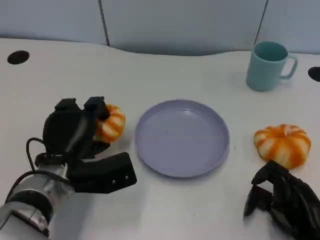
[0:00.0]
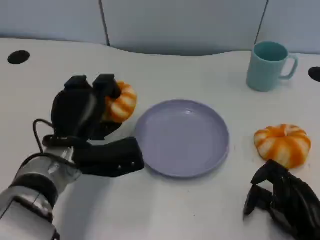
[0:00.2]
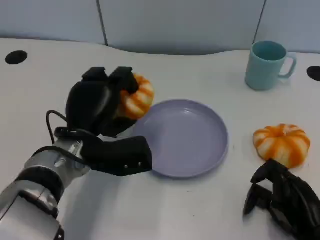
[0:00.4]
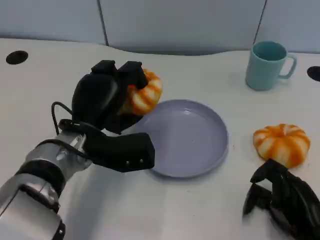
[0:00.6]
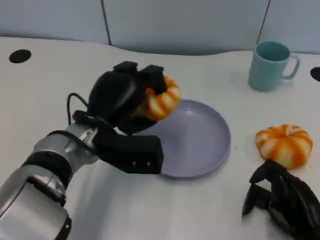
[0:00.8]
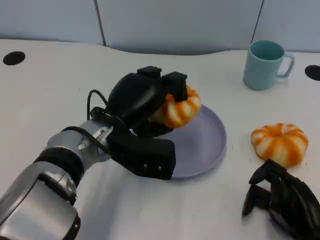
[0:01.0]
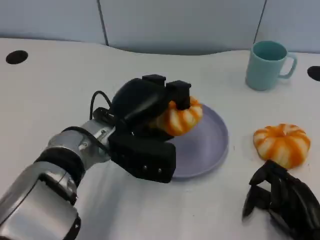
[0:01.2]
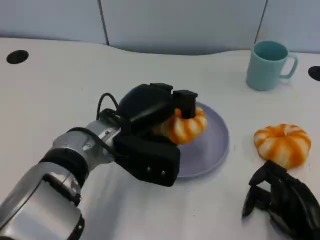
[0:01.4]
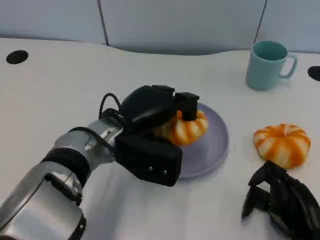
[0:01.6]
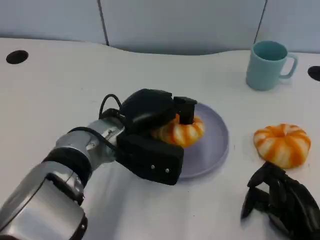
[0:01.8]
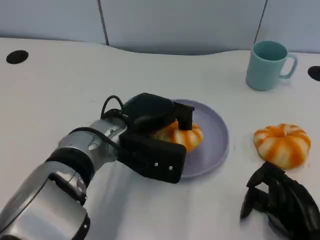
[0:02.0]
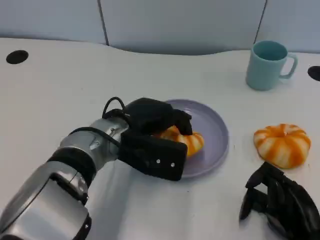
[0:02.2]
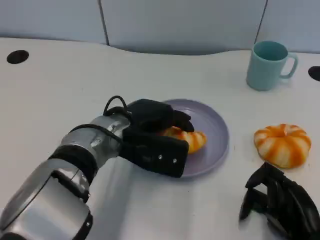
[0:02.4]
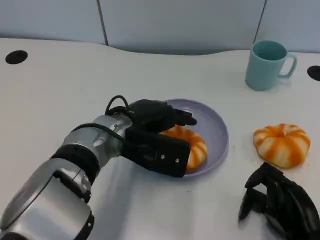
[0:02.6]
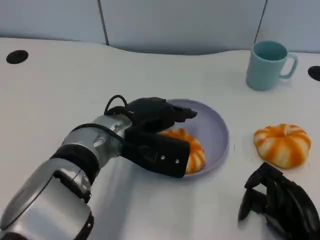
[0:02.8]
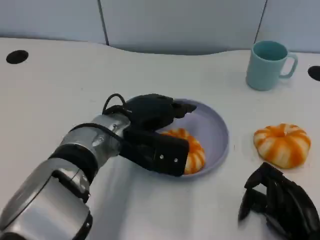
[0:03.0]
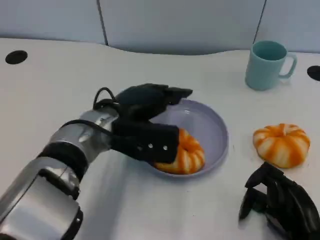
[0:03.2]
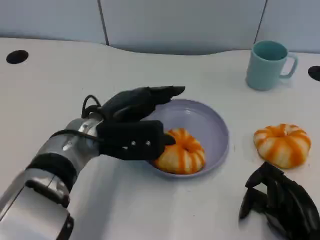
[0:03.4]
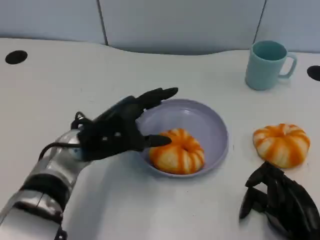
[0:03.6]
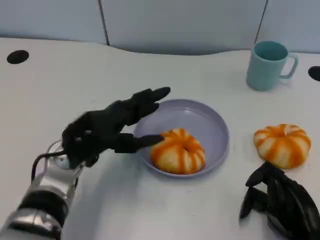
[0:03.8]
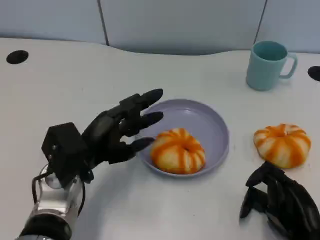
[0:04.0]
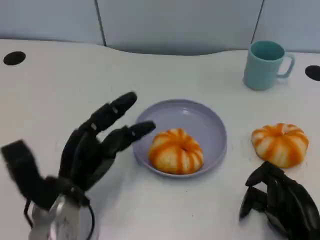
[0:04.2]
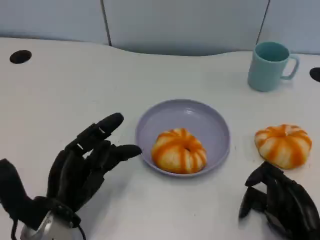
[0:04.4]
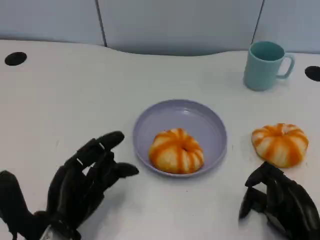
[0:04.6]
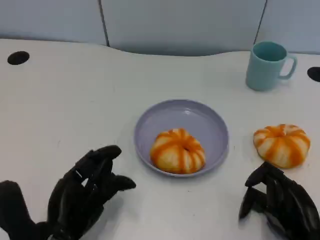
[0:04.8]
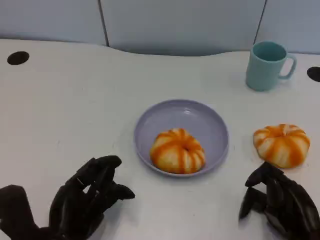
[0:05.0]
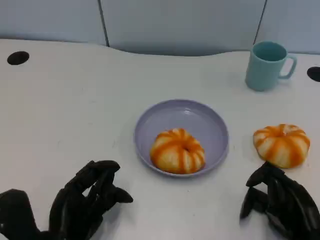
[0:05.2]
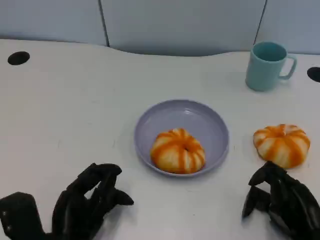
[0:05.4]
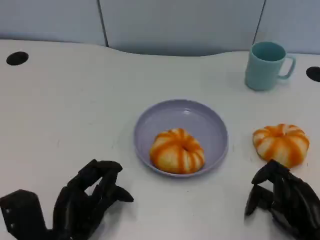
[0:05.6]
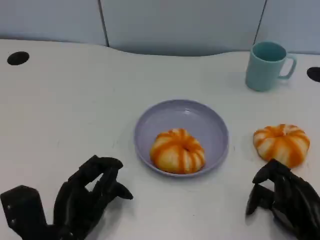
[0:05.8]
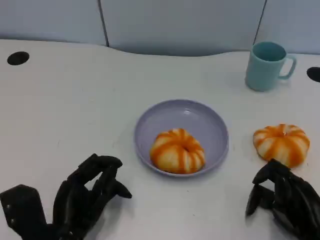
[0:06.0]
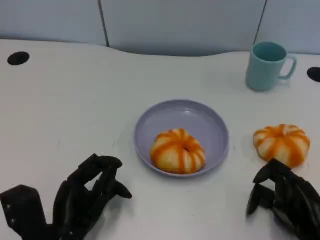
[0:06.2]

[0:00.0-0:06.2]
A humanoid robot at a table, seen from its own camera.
Task of the whole recording: Grasp the bread from the table and place it into the plate.
0:00.0 to 0:01.6: The left hand shifts some 10 cm to the right and upward.
0:03.2 to 0:04.6: The left hand shifts about 15 cm backward, to the left and downward.
0:04.6 to 0:06.2: There are only small adjustments of the hands.

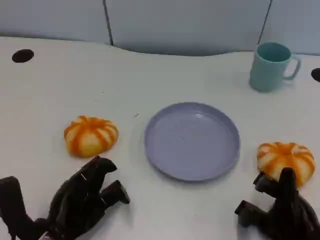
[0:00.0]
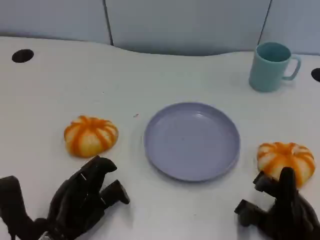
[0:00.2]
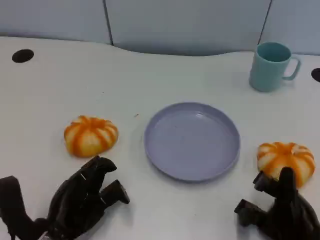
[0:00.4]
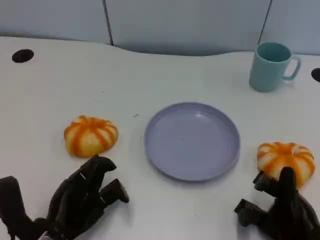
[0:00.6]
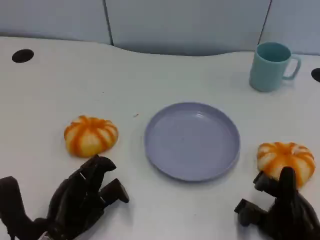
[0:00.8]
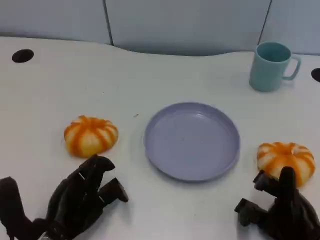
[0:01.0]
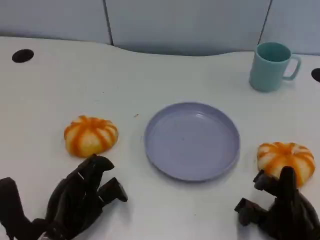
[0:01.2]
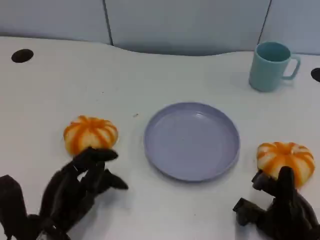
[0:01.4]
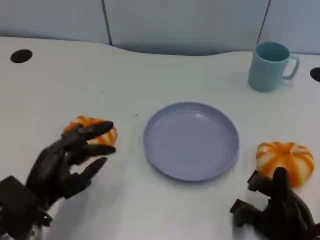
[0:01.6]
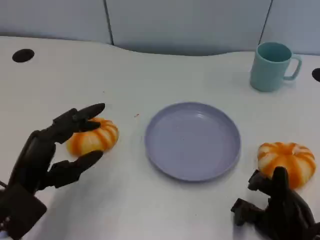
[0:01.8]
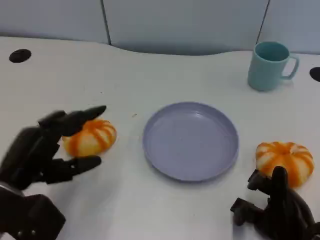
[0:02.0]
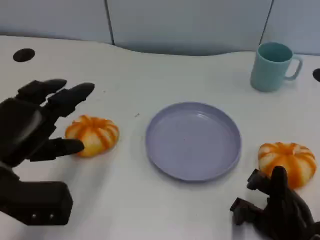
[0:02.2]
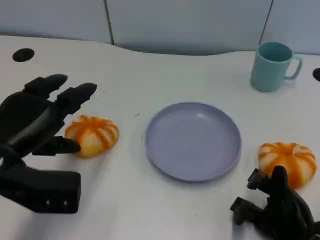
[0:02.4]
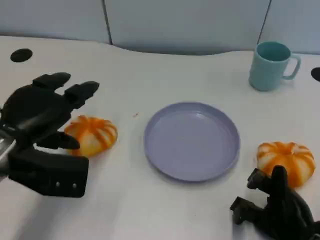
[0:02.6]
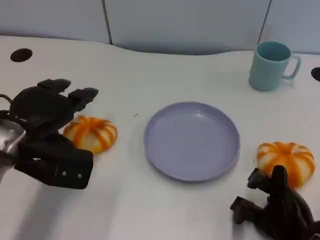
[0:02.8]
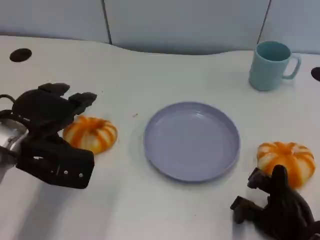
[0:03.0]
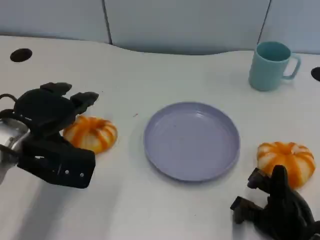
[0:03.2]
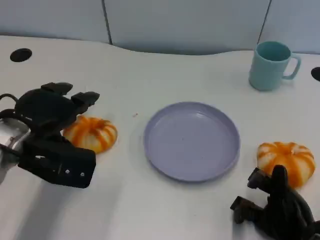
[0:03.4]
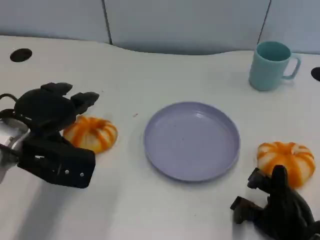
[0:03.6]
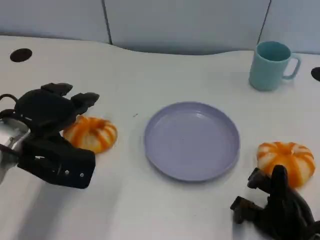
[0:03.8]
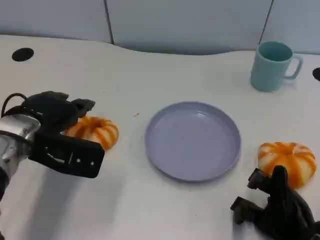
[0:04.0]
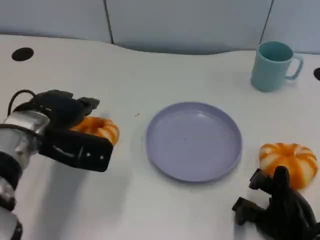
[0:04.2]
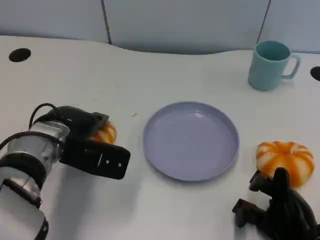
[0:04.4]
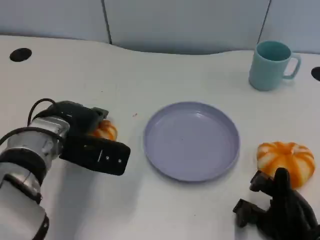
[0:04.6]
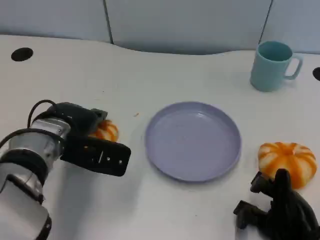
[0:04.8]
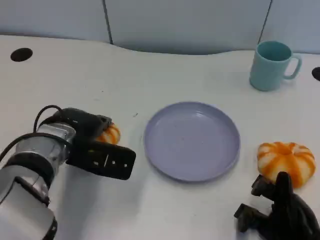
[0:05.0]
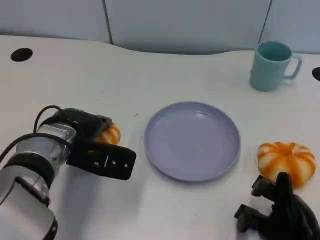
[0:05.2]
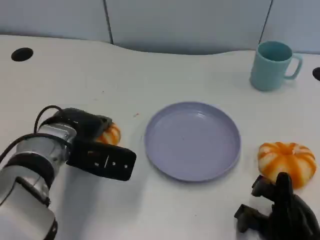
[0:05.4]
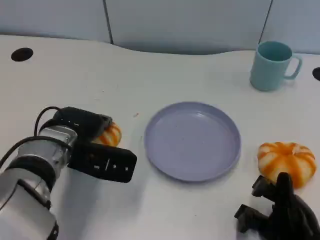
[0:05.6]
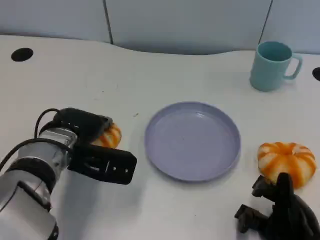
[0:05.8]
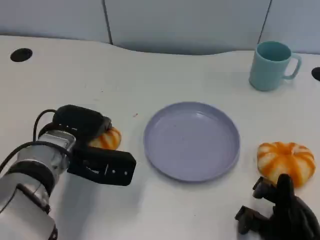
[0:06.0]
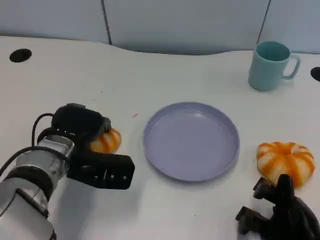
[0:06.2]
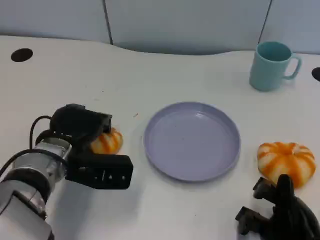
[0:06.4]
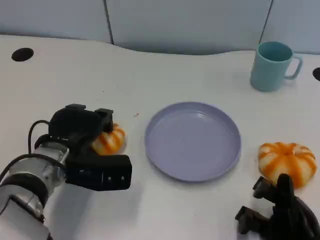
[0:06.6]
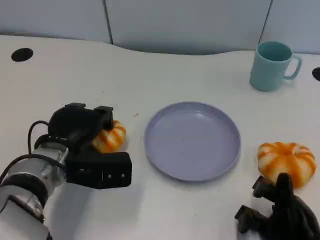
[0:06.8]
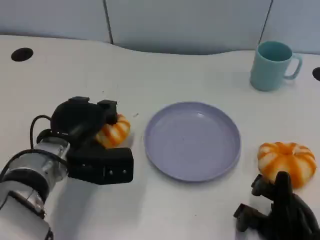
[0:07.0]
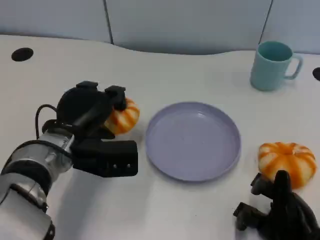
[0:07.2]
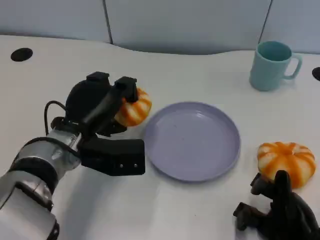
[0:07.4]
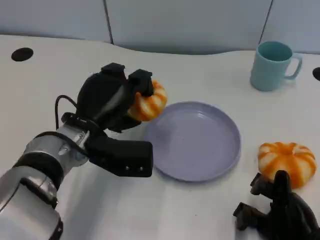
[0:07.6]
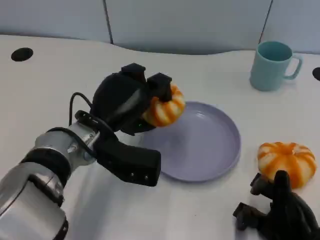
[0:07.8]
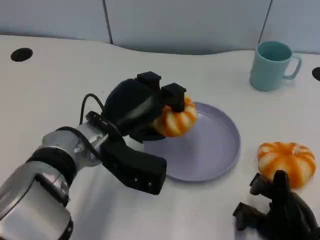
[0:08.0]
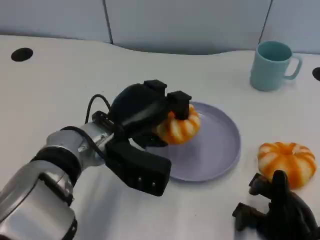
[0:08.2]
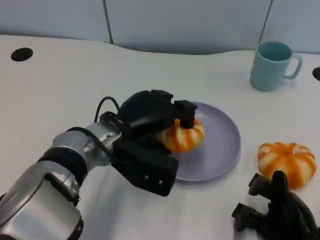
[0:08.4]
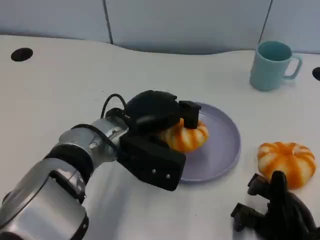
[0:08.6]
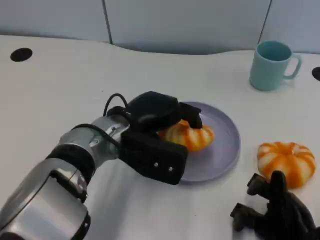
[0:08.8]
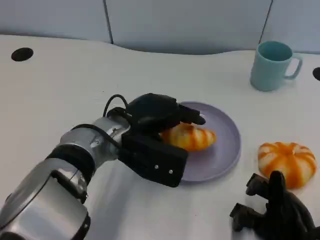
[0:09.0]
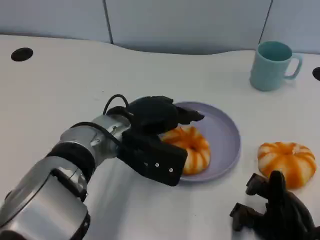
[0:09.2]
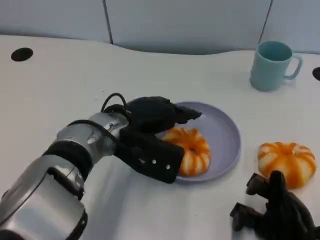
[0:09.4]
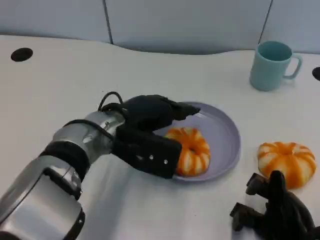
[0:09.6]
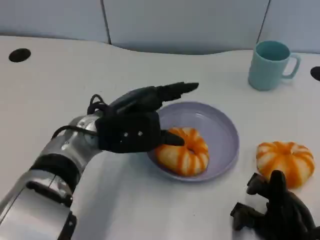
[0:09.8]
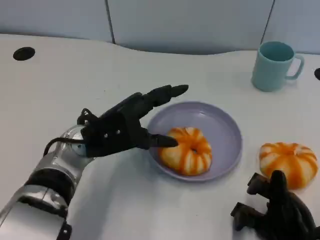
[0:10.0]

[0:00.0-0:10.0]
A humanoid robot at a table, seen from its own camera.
Task of the whole recording: Grasp the bread from the table and place it into the plate.
0:01.4 to 0:02.8: The left hand moves upward and forward, roughly 15 cm.
0:02.8 to 0:04.2: The hands stay close to where they were, moving slightly.
0:04.2 to 0:05.8: The hands move only a little.
0:07.2 to 0:08.6: The left hand is displaced to the right by roughly 5 cm.
0:08.6 to 0:10.0: The left hand shifts roughly 5 cm to the left.

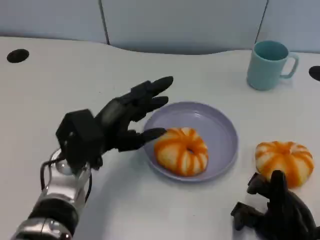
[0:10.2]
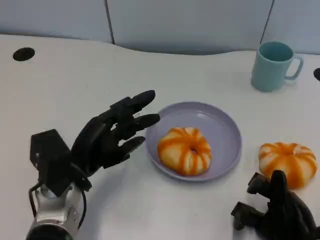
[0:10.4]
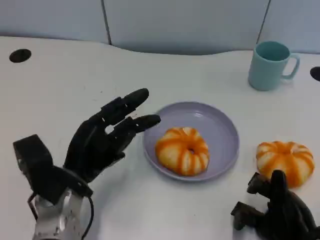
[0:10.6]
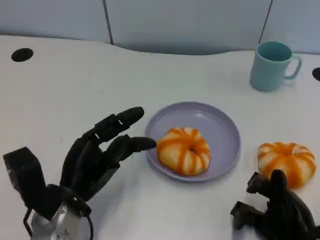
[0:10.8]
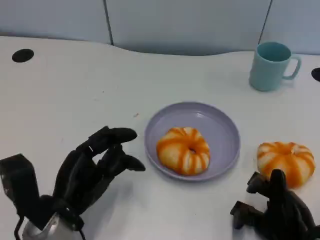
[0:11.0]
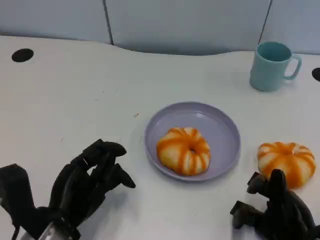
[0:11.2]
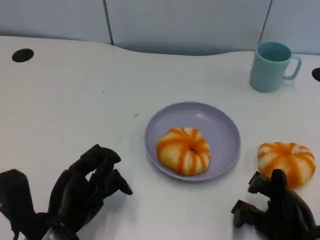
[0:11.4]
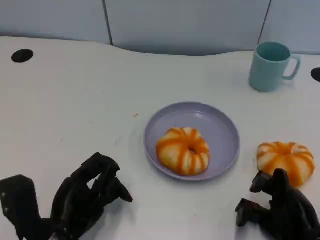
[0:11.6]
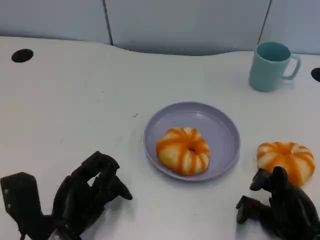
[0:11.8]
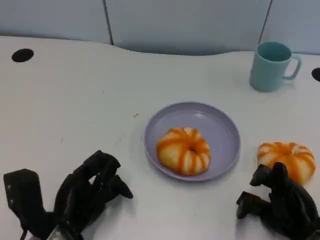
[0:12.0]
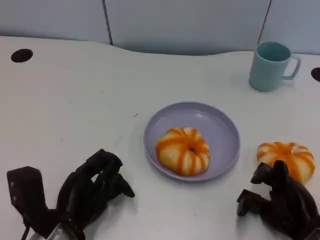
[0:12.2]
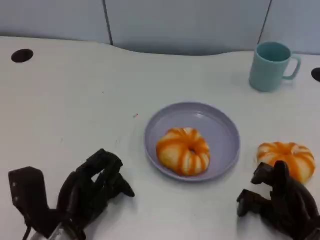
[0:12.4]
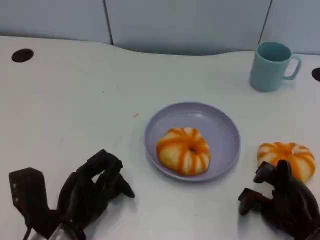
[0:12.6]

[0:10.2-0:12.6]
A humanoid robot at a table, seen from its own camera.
Task of the whole recording: Grasp the bread from the table and place it into the plate.
0:10.2 to 0:11.4: The left hand moves backward, some 10 cm.
0:11.4 to 0:12.6: The hands make only small movements.

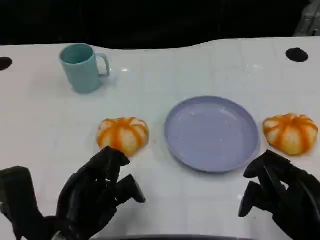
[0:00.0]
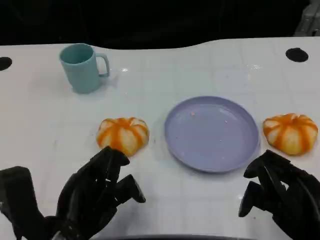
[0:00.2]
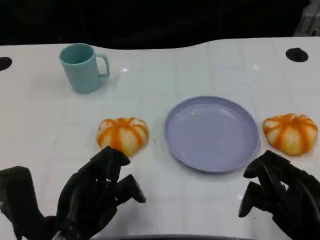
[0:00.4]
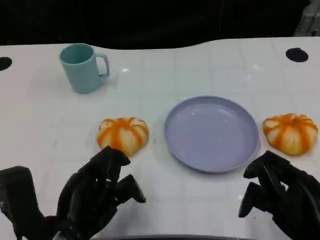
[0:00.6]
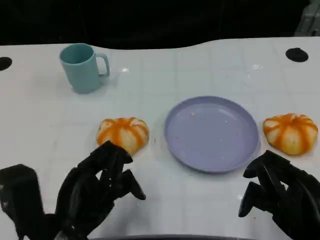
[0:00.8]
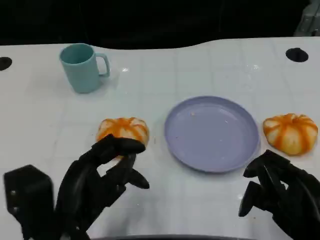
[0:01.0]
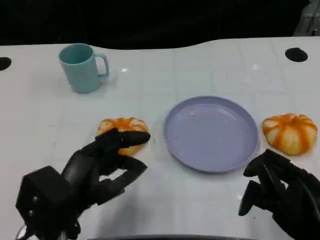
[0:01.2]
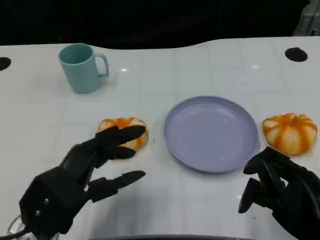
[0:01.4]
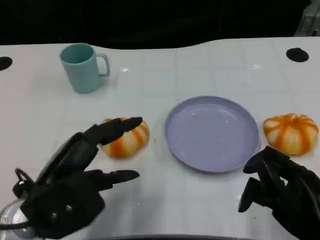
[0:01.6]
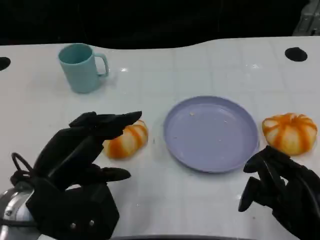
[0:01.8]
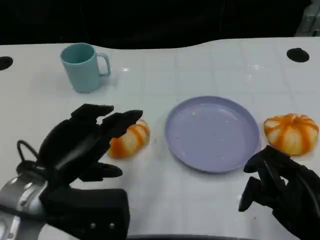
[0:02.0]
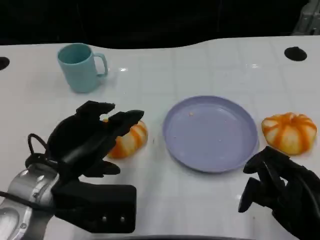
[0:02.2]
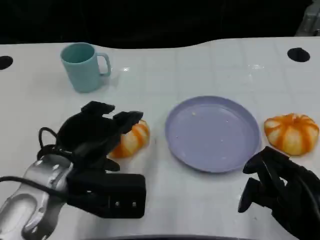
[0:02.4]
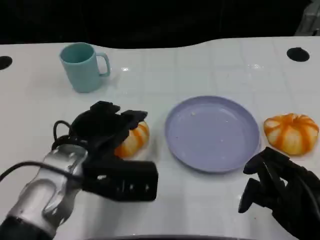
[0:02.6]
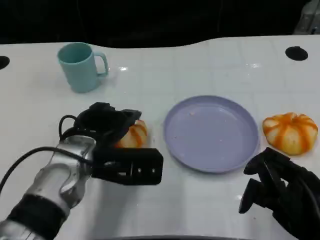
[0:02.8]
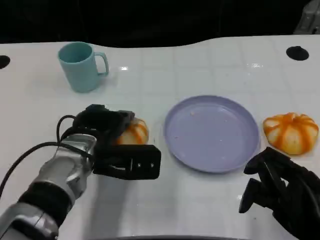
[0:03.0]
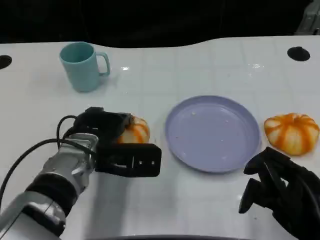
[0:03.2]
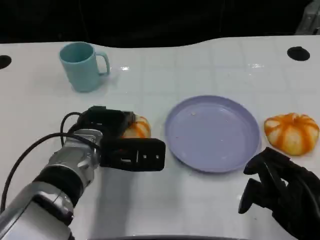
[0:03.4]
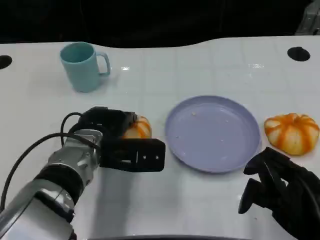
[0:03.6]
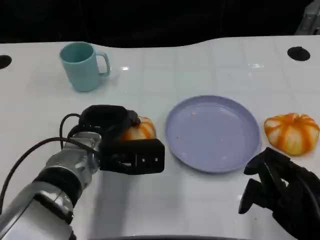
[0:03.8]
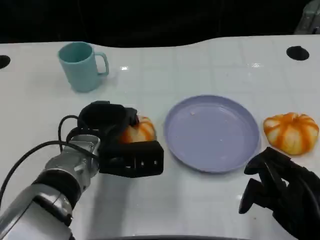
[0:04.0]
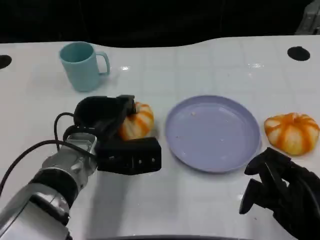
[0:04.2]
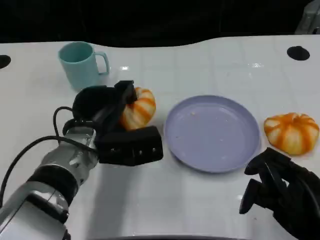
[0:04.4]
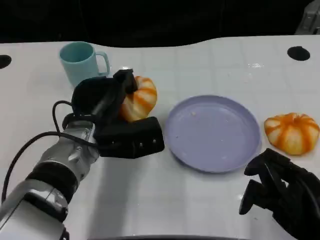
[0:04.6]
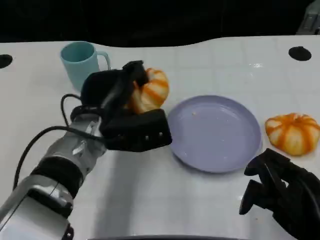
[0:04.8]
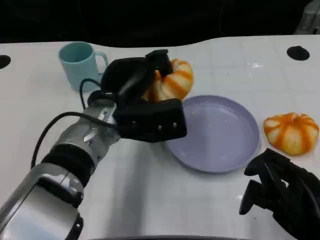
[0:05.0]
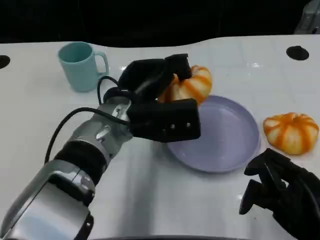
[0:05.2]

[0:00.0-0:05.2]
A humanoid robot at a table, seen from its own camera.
Task of the whole recording: Grasp the bread from the table and place it into the plate.
0:00.0 to 0:01.8: The left hand goes some 5 cm upward.
0:01.8 to 0:03.4: The left hand is displaced forward and to the right by approximately 15 cm.
0:03.4 to 0:05.2: The left hand is displaced to the right and upward by approximately 10 cm.
